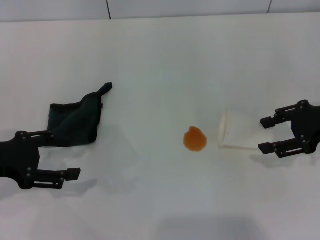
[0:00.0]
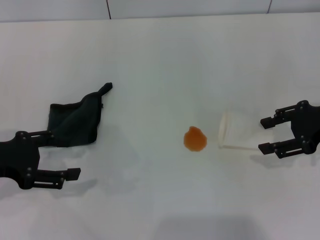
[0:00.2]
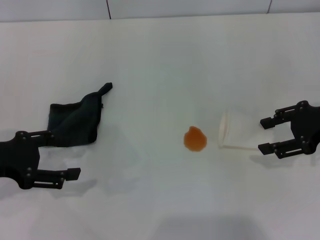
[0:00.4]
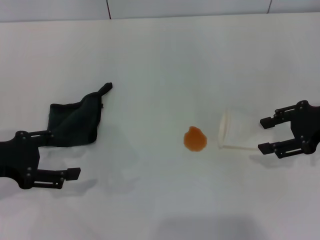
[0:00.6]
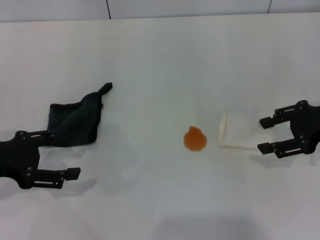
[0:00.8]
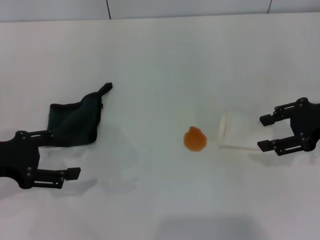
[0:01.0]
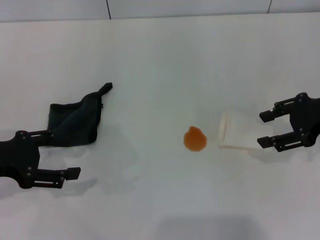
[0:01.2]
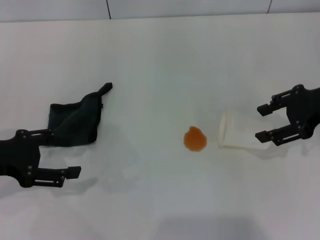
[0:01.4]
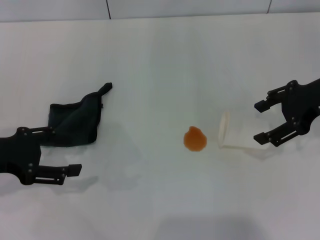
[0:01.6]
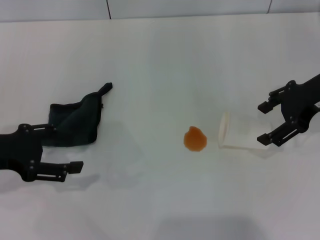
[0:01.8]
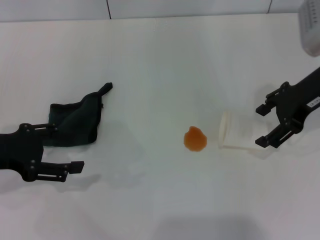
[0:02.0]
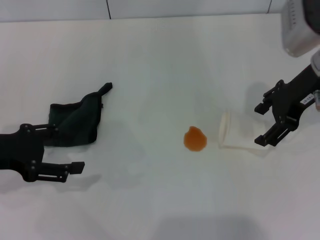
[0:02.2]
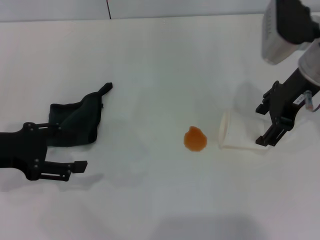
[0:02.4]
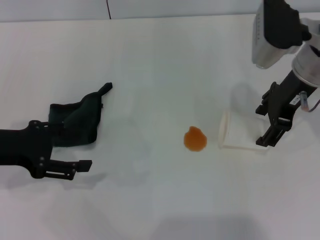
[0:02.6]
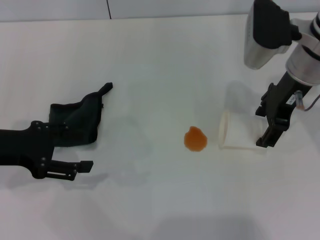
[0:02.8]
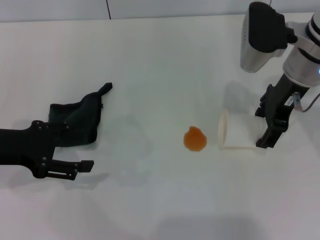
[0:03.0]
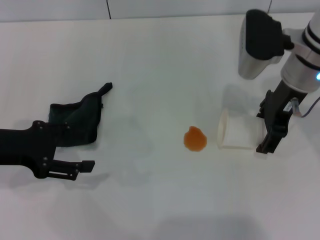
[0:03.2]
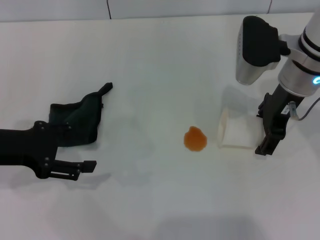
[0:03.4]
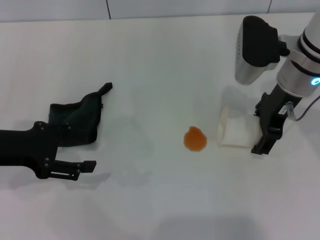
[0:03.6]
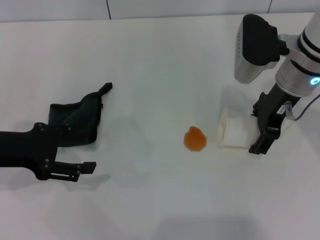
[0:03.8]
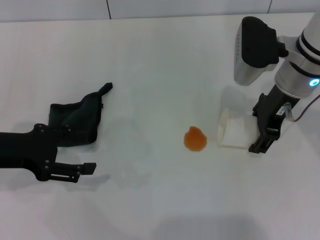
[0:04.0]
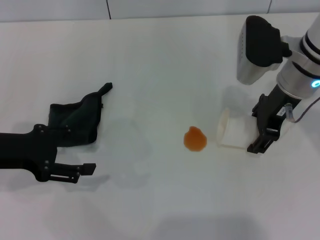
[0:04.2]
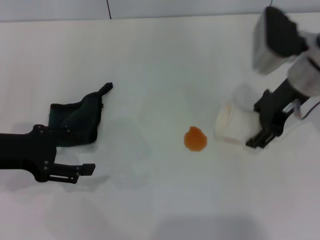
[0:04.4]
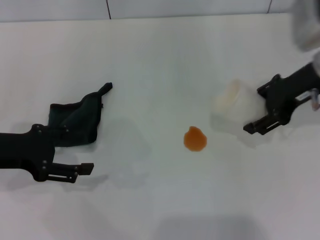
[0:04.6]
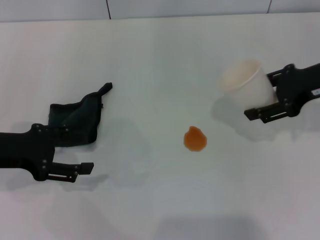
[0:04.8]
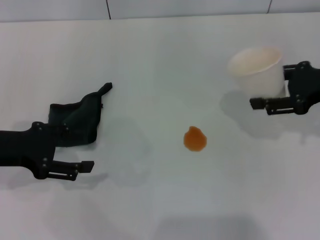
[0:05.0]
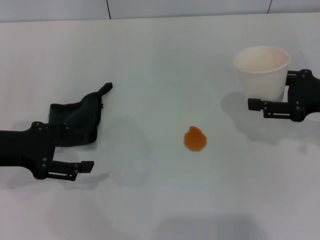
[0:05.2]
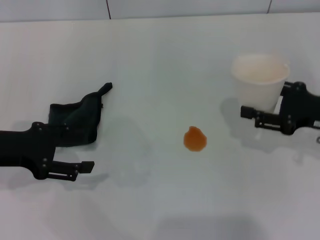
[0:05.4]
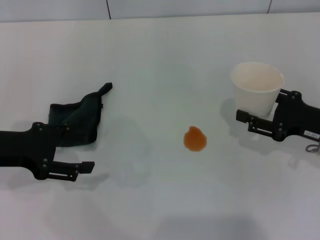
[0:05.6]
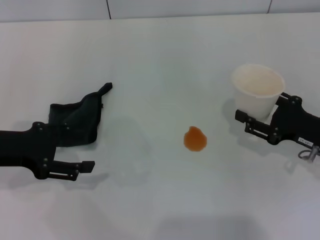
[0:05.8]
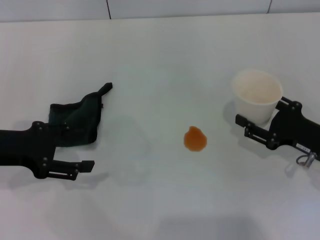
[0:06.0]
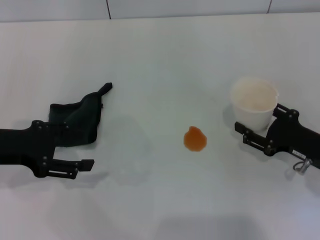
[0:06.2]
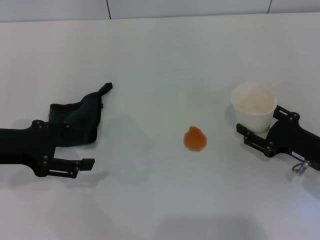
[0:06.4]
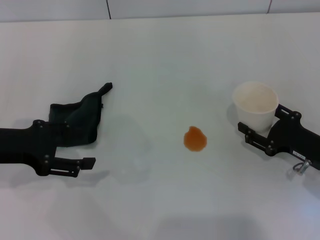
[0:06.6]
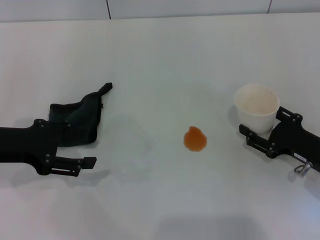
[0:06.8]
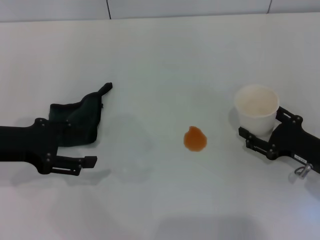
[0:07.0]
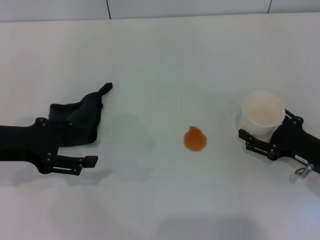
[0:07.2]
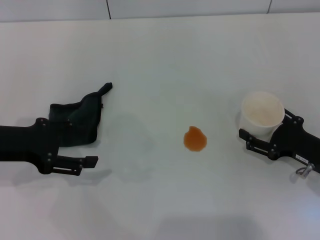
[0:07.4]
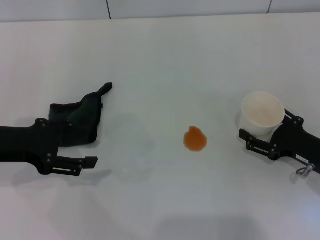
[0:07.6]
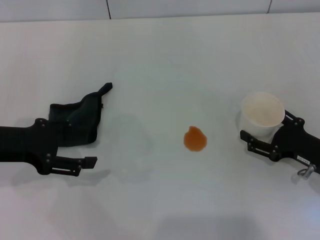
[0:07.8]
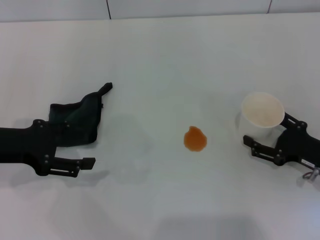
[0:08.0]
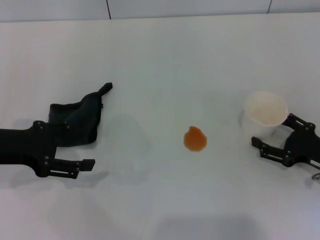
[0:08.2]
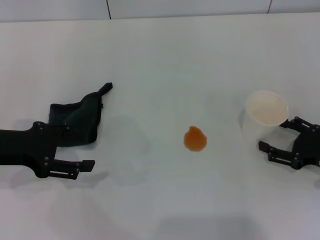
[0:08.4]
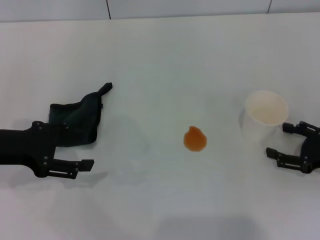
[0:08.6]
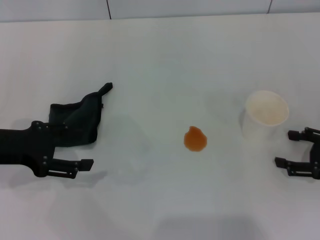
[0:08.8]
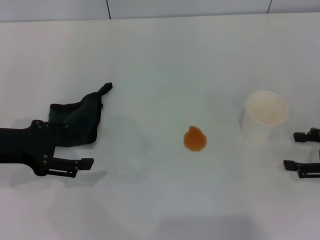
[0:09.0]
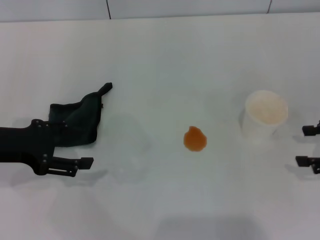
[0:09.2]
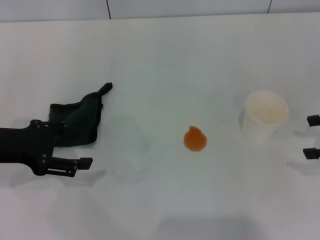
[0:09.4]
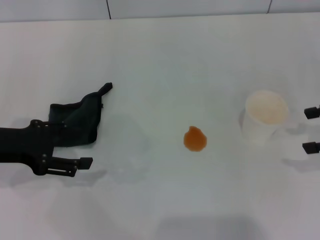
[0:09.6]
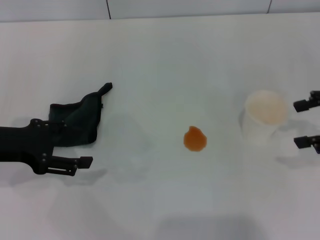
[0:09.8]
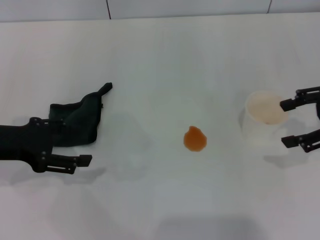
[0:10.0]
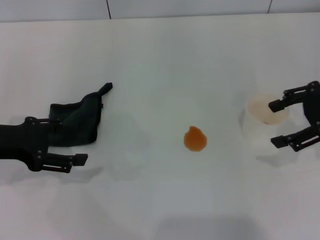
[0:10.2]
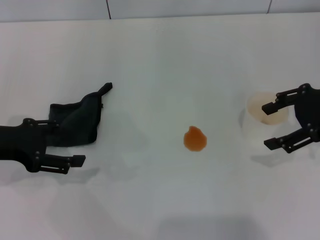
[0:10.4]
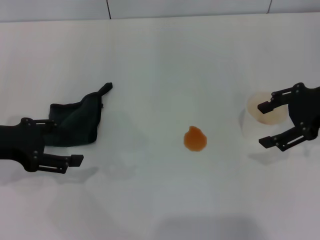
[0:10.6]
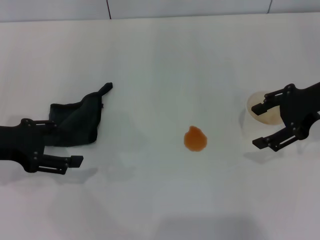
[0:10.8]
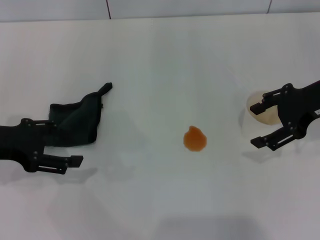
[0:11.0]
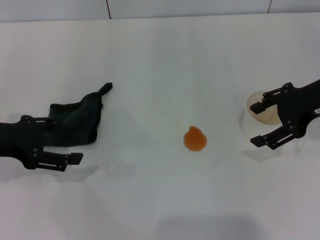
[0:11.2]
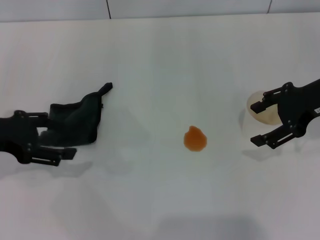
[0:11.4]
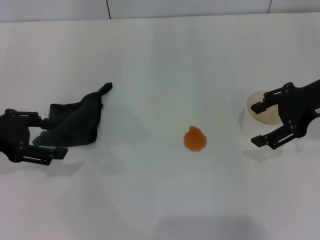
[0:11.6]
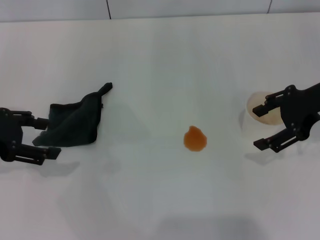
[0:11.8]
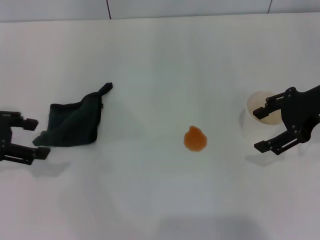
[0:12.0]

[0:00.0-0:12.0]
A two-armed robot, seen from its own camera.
Step, 0:00.0 to 0:04.0: Grasp the paper cup with the right gripper.
Step, 0:04.2 to 0:08.2: Stand the paper cup upright with the right gripper.
0:00.0 to 0:01.6: The right gripper changes place by about 5 cm.
0:01.6 to 0:03.0: The right gripper shifts approximately 10 cm to the left, and opens.
0:03.0 to 0:04.4: The right gripper closes its fingers.
0:04.4 to 0:06.0: The right gripper moves downward, backward and to the right, roughly 20 cm.
0:06.0 to 0:07.6: The right gripper opens up.
0:07.6 to 0:09.0: The right gripper moves to the right and upward, approximately 10 cm.
0:09.0 to 0:10.4: The right gripper travels upward, to the left and forward by about 15 cm.
0:10.4 to 0:12.0: The left gripper moves some 5 cm.

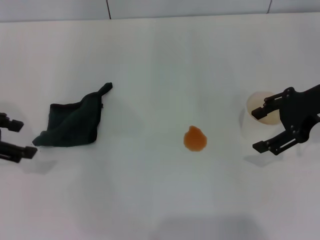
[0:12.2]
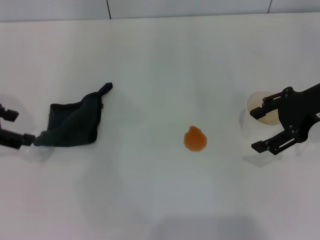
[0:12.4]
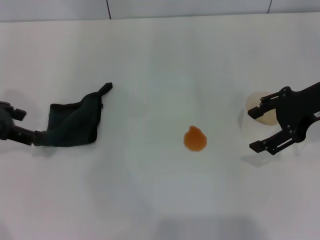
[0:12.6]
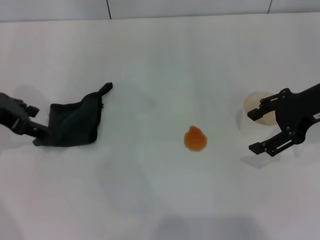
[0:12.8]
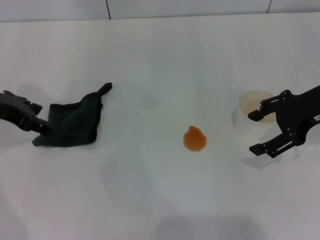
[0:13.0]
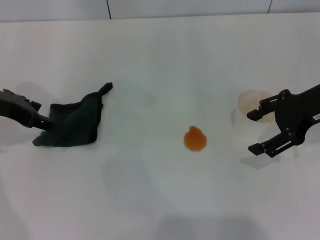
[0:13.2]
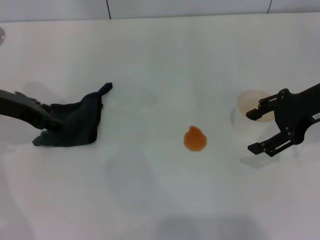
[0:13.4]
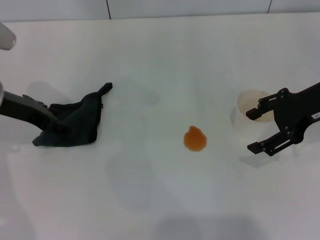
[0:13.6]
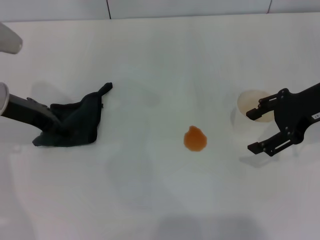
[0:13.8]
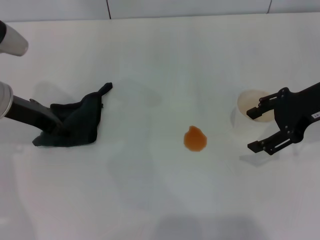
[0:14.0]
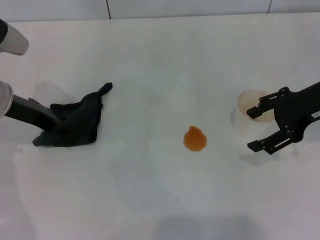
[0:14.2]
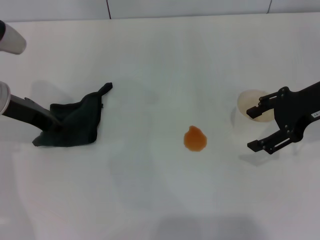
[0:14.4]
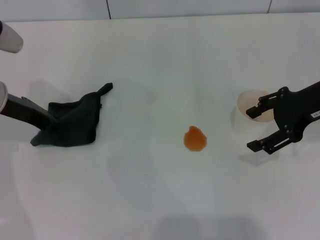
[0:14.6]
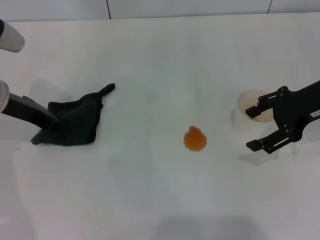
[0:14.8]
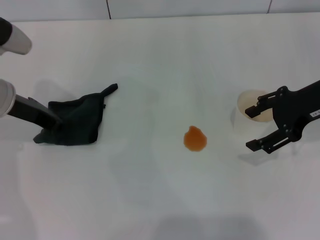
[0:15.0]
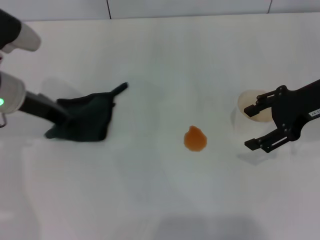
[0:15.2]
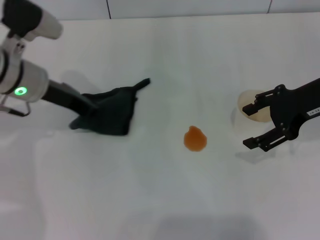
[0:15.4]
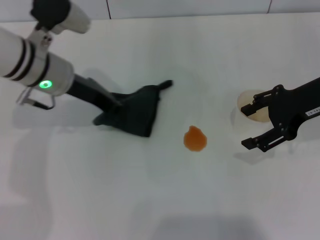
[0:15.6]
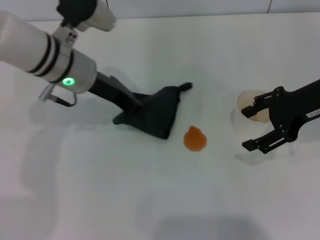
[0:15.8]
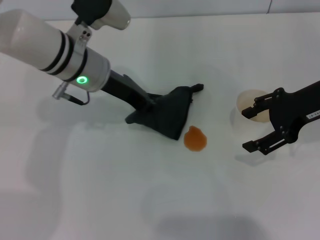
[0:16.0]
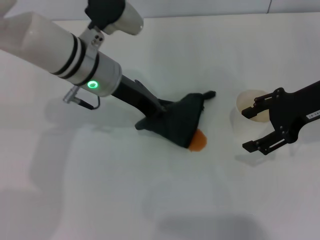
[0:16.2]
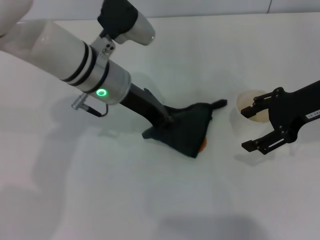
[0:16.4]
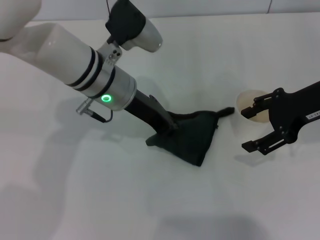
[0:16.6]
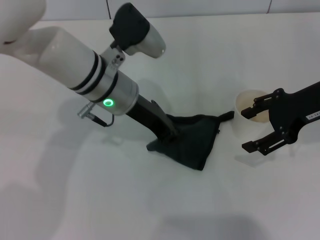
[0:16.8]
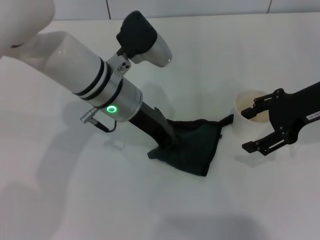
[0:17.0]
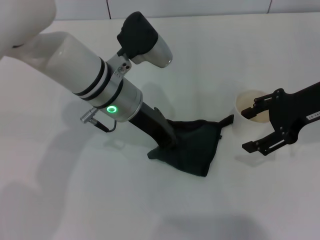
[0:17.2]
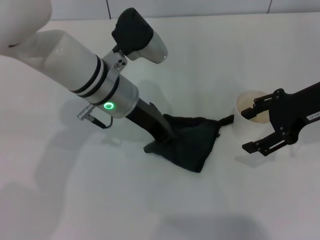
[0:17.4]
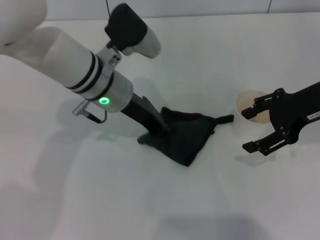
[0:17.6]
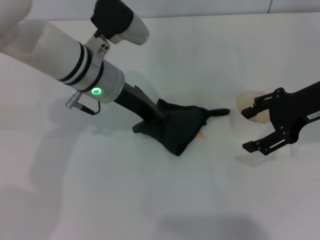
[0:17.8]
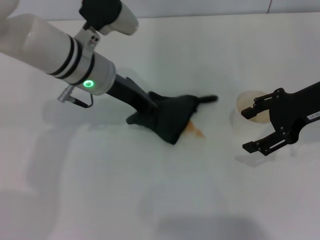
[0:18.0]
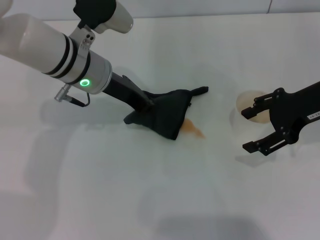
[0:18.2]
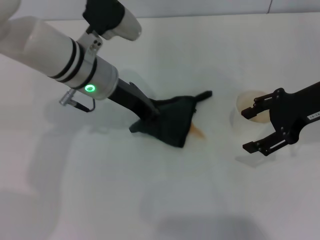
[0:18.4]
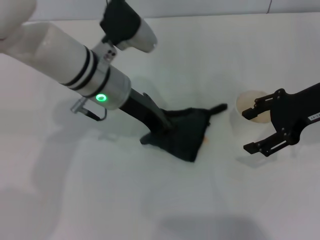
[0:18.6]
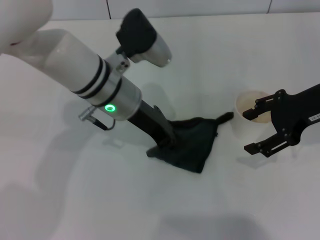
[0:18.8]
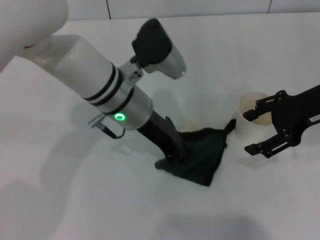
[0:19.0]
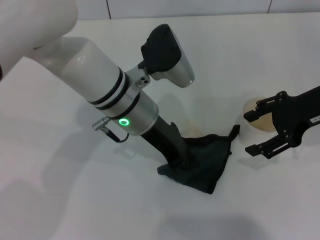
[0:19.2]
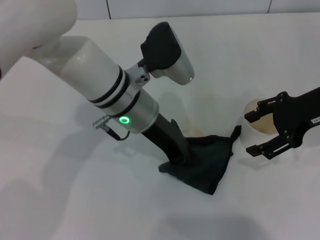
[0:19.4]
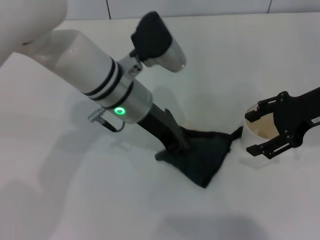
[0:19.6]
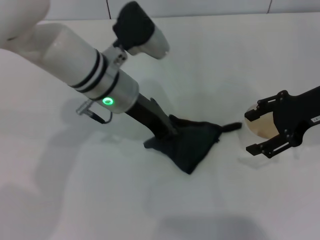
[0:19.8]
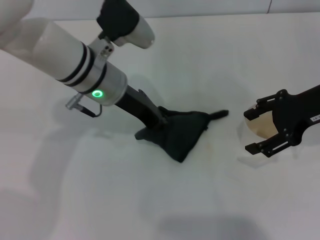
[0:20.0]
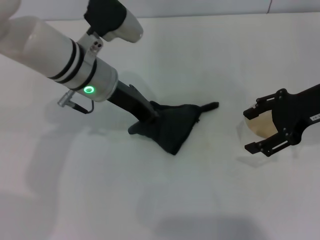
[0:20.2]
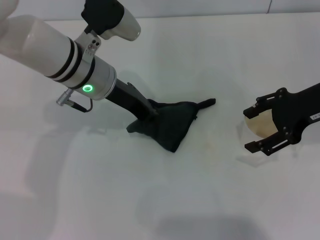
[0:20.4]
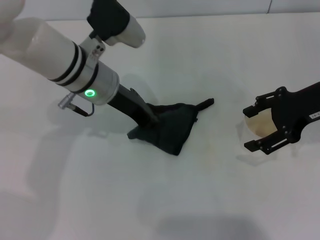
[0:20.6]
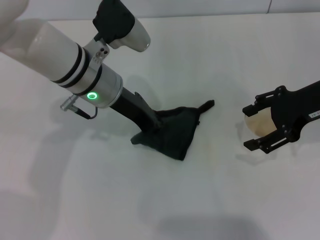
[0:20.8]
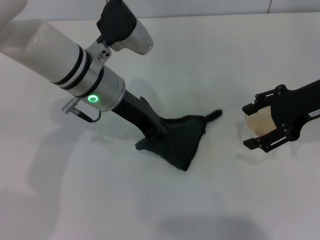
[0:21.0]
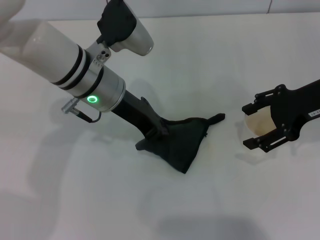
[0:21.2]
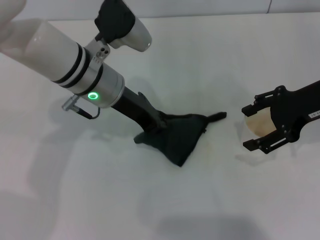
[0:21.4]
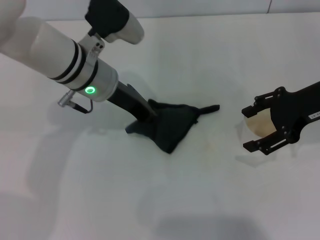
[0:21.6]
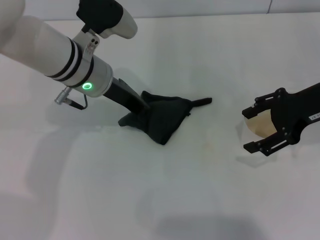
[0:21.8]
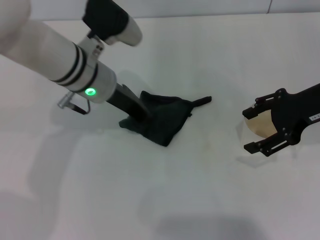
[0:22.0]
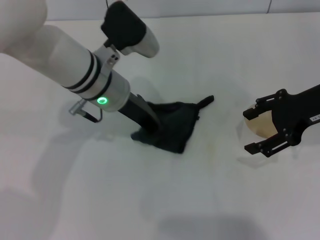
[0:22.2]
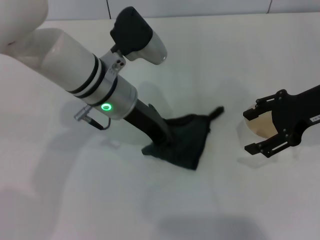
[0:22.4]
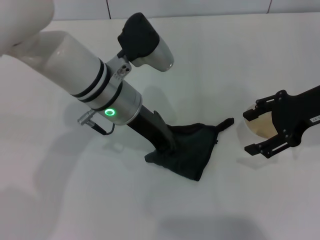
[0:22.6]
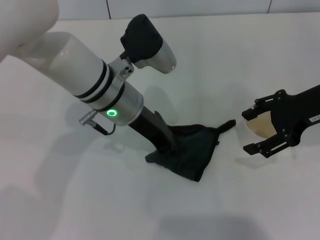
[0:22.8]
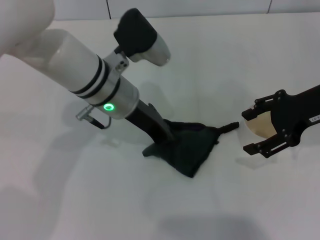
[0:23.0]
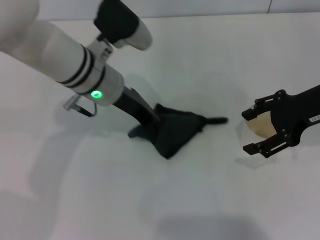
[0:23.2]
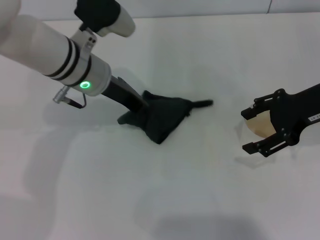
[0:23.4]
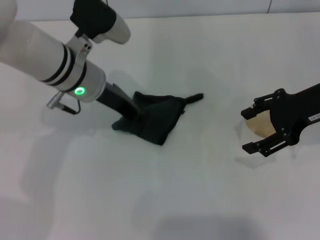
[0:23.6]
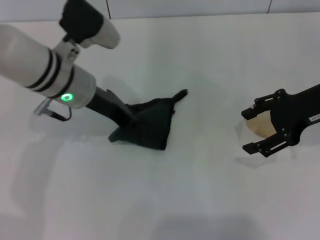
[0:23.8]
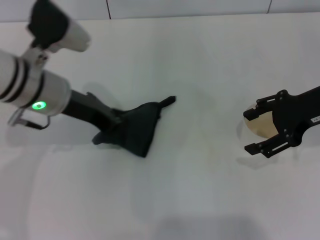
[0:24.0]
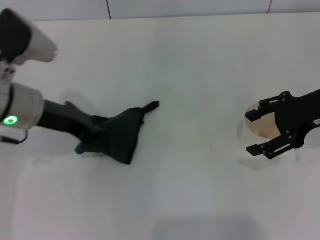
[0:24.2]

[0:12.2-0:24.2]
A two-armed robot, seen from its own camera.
Step, 0:12.2 to 0:15.0: Grasp the rag with the left gripper.
0:12.2 to 0:13.8: The left gripper travels to the right and forward by approximately 10 cm.
0:13.8 to 0:15.2: The left gripper closes up.
0:15.2 to 0:16.6: The left gripper moves to the right, about 15 cm.
0:16.6 to 0:18.2: The grippers stay close to where they were, moving slightly.
0:19.8 to 0:22.6: There are only small adjustments of the grippers.
0:22.6 to 0:24.2: The left gripper heads to the left, covering some 15 cm.
